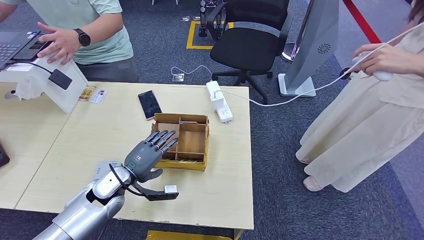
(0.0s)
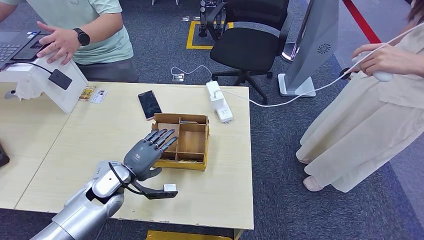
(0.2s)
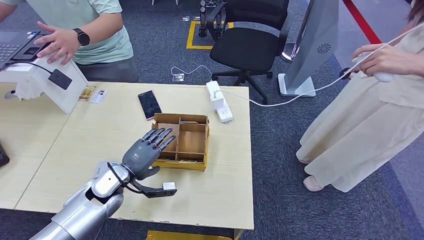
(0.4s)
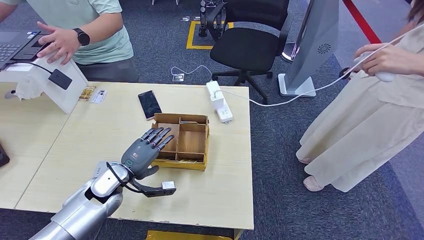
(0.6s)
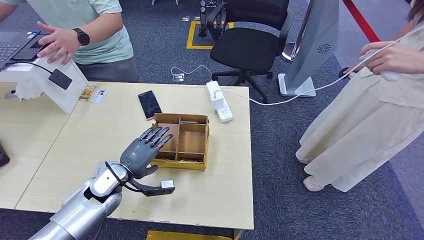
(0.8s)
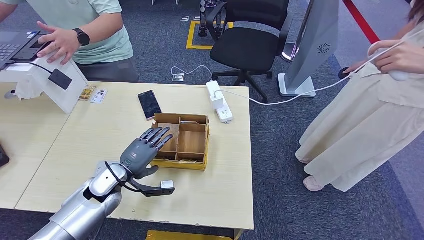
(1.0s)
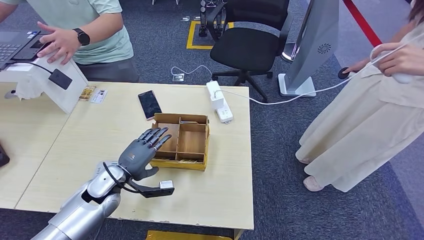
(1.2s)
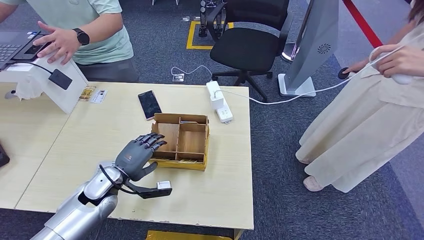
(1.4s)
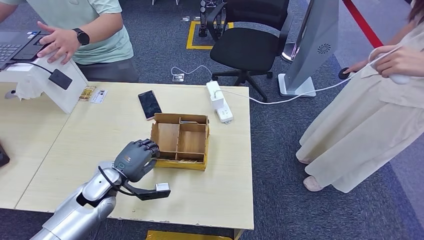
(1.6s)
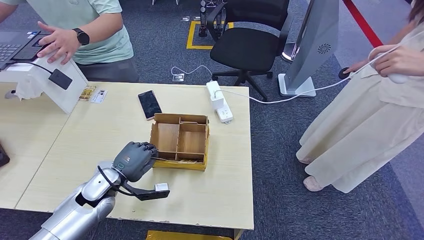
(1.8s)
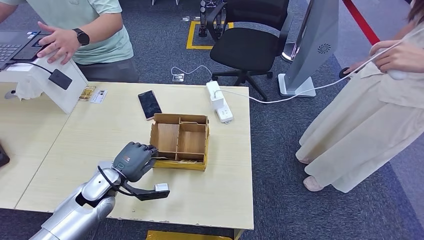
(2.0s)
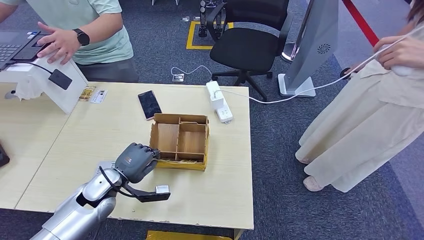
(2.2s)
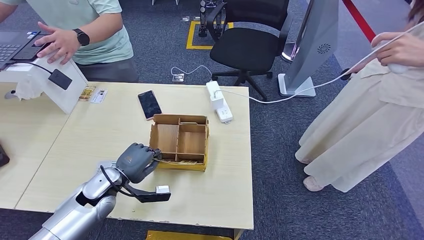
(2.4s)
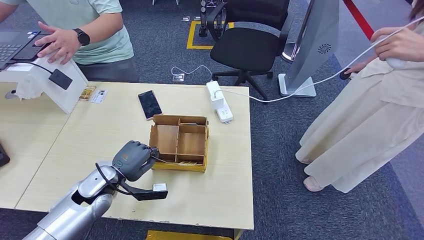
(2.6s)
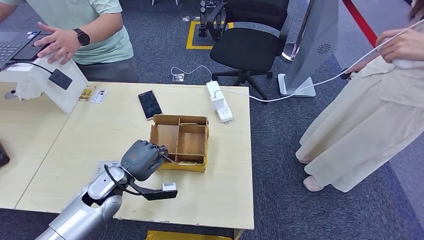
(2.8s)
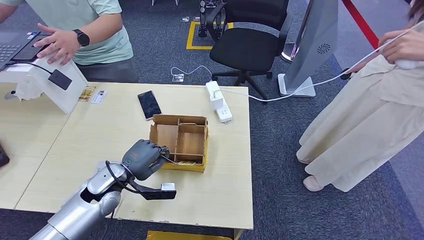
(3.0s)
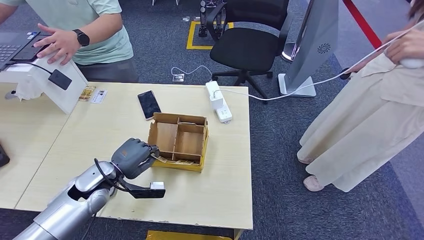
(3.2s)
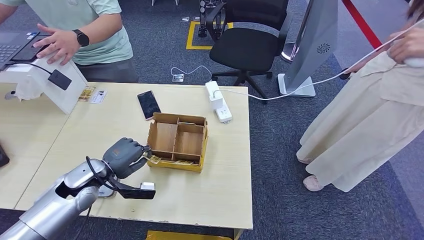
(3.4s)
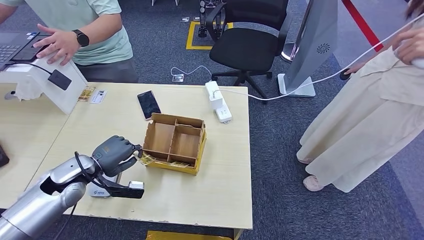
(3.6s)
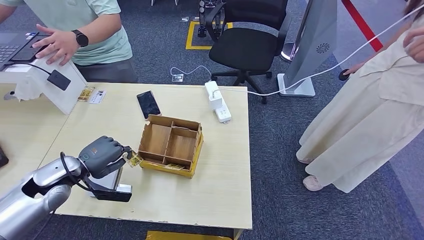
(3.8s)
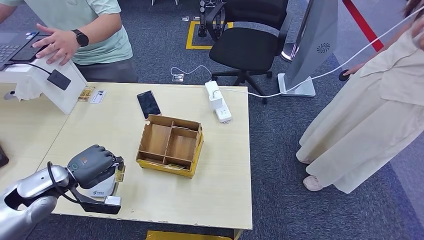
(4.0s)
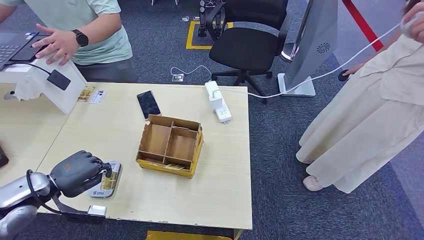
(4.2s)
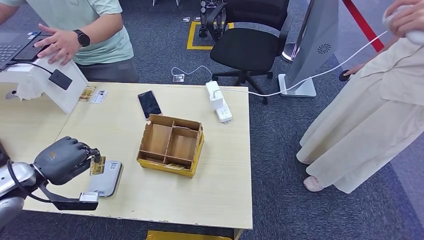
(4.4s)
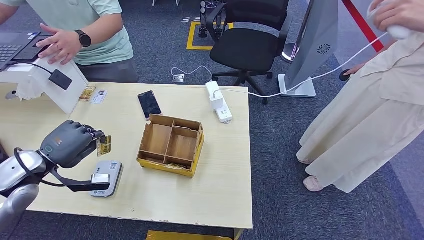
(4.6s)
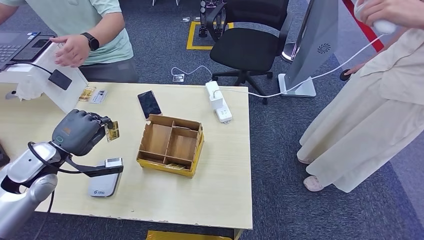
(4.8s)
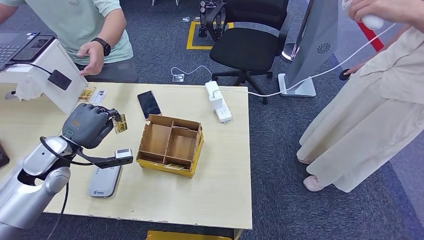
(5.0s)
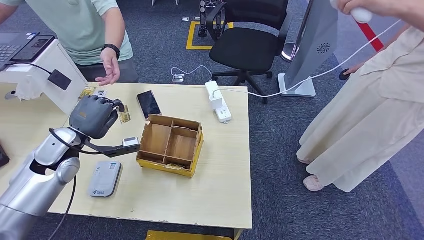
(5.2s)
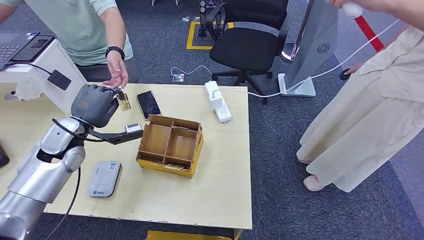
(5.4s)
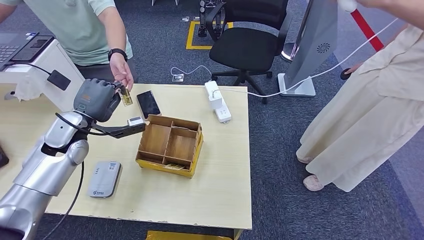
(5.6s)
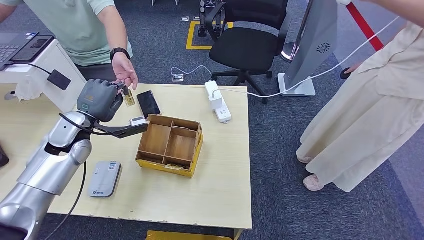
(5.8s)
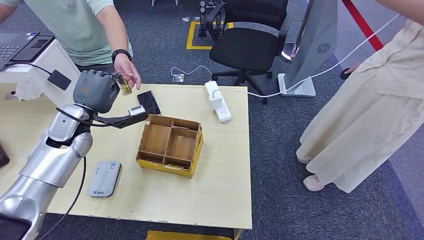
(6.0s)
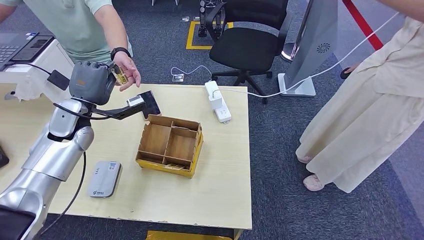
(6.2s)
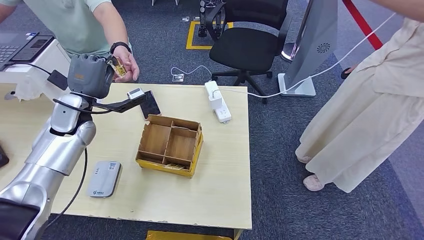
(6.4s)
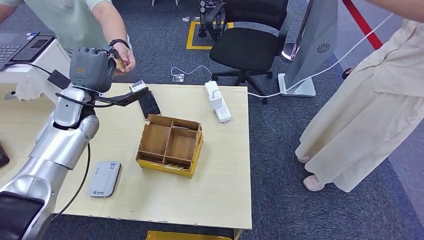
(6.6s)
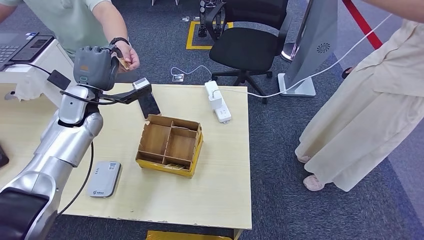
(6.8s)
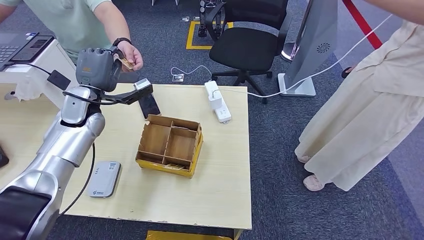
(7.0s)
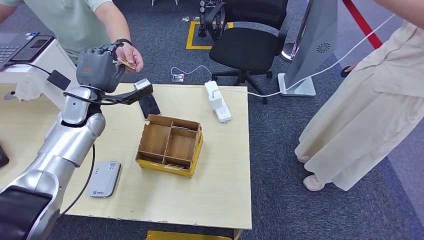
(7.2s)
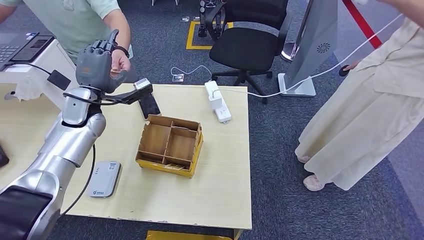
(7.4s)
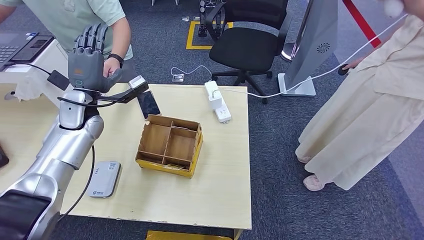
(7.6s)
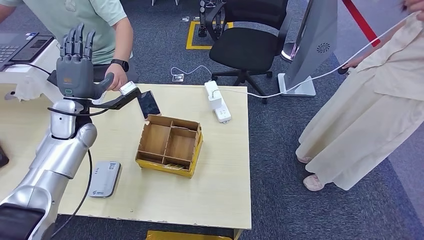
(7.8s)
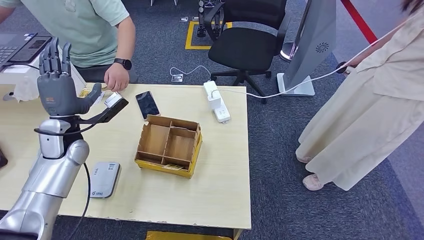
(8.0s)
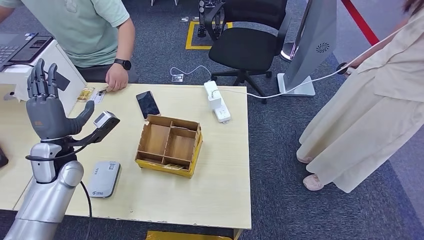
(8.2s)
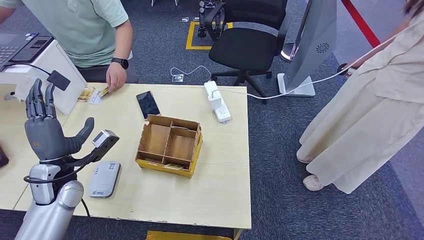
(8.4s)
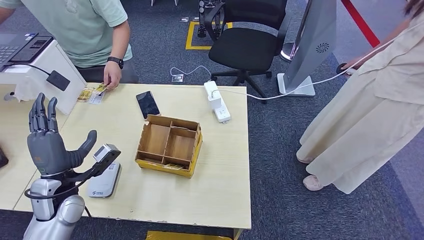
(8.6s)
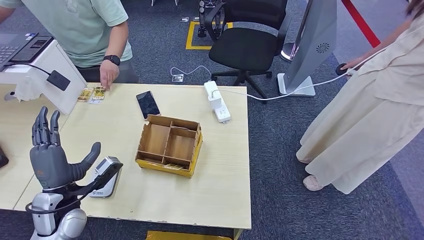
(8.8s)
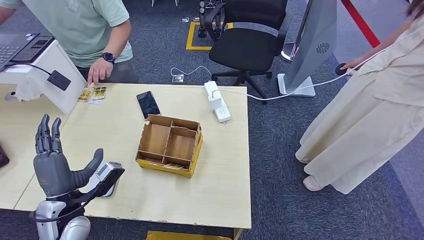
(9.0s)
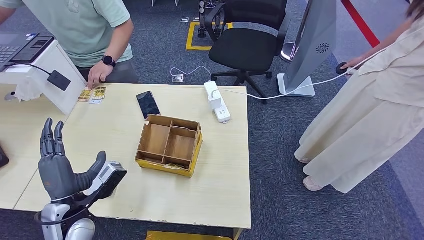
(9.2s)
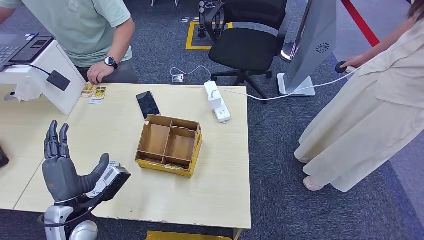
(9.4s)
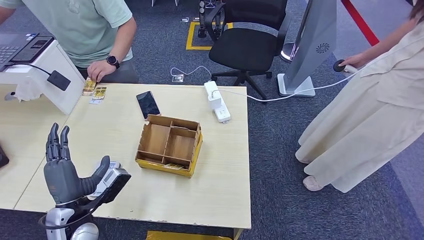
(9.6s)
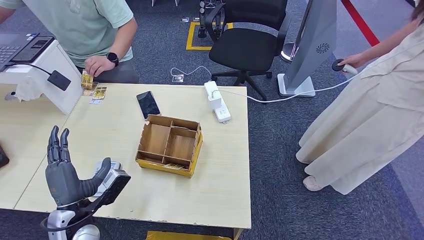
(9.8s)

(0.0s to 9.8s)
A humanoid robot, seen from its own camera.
Step, 0.0s - 4.8s: Pick up the room key from the key card box.
0.0s - 2.8s: The hands stay close to where they were, moving slightly.
2.8s - 4.2s: The left hand travels to the left and upward by about 15 cm.
4.2s - 5.6s: The left hand travels forward, to the right and upward by about 15 cm.
5.6s - 7.0s: The left hand heads forward, covering roughly 5 cm.
7.0s - 8.4s: The left hand shifts approximately 20 cm backward and downward.
8.4s - 9.8s: The left hand goes roughly 10 cm backward, to the right and downward.

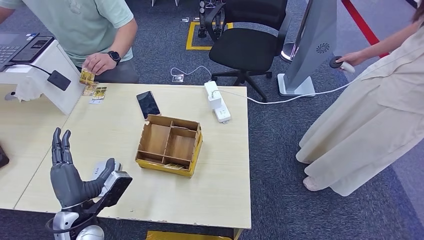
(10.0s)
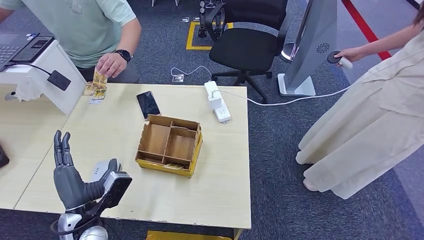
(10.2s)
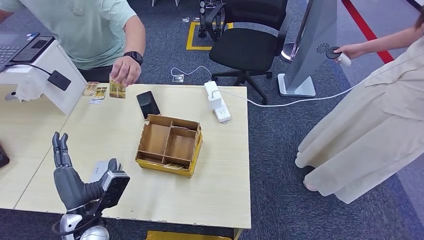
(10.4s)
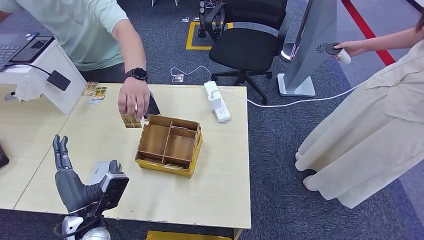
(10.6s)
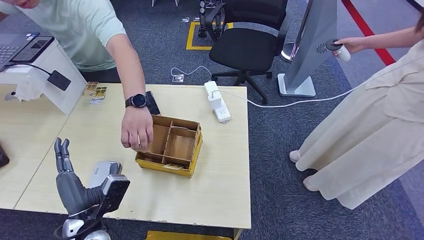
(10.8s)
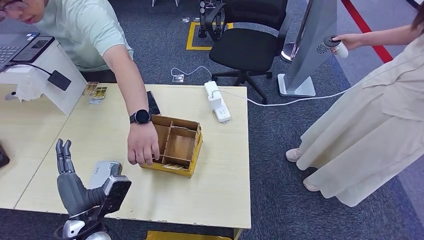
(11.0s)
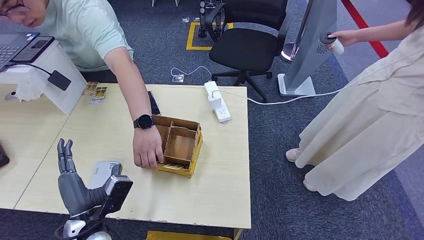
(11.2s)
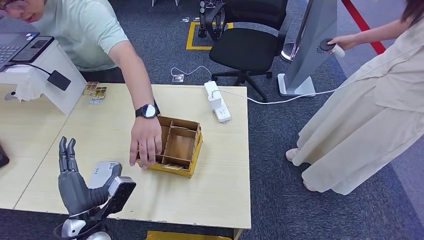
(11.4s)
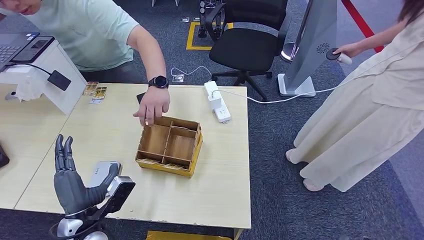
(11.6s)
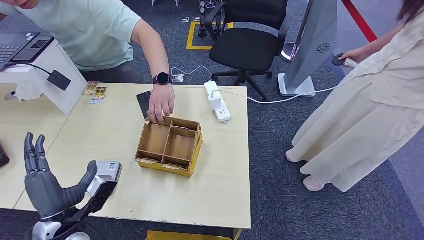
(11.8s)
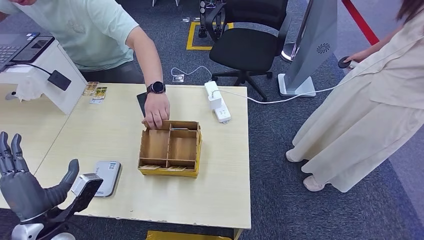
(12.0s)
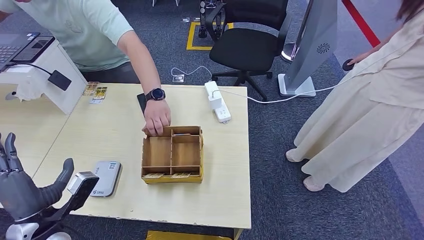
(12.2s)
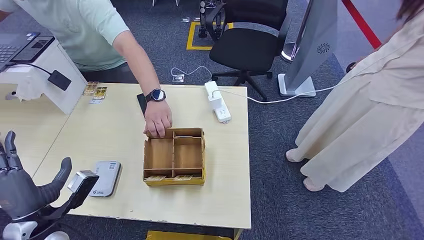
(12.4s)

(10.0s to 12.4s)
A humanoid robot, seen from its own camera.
Step, 10.0s - 12.2s: Hand the room key to the person.
10.0s - 11.2s: The right hand heads upward and forward, covering about 10 cm.
